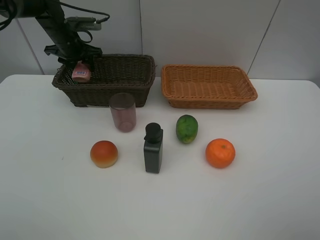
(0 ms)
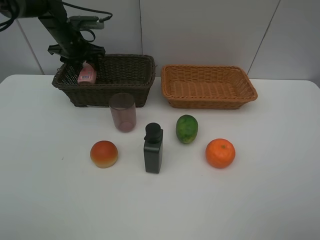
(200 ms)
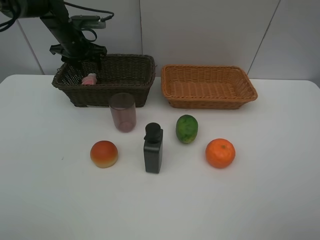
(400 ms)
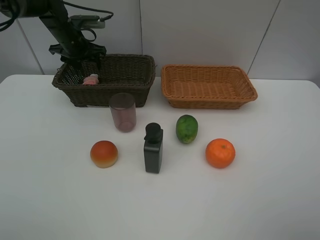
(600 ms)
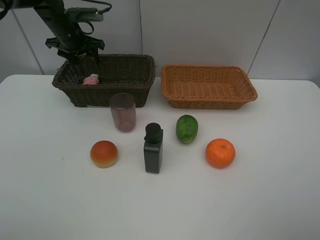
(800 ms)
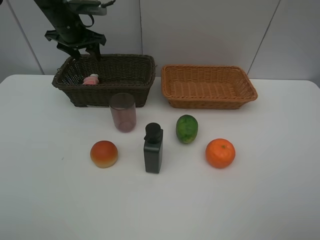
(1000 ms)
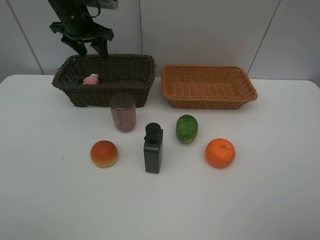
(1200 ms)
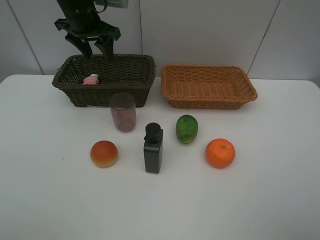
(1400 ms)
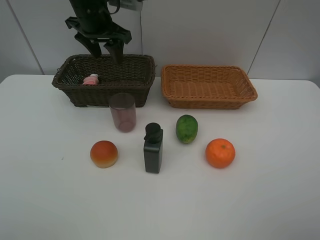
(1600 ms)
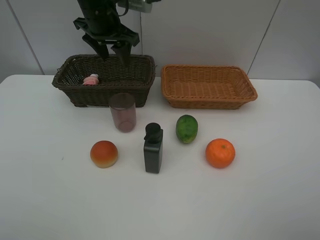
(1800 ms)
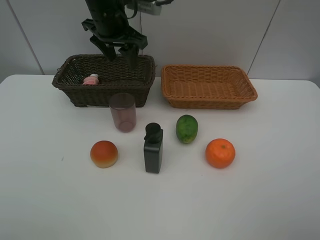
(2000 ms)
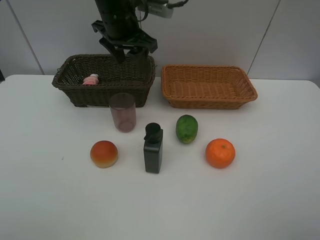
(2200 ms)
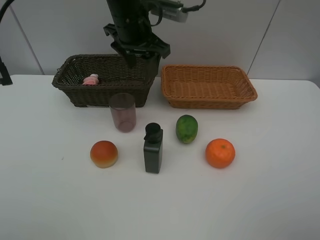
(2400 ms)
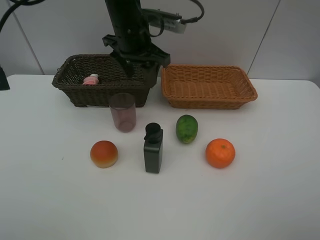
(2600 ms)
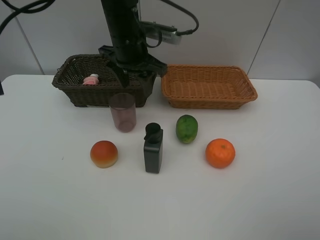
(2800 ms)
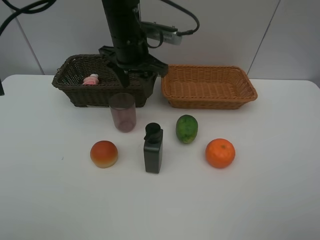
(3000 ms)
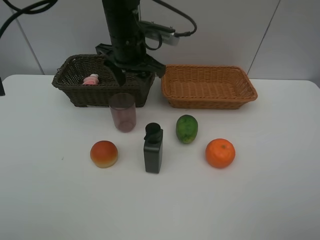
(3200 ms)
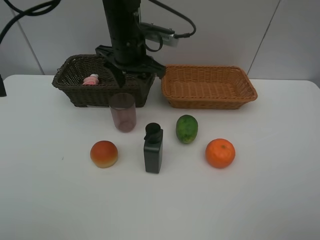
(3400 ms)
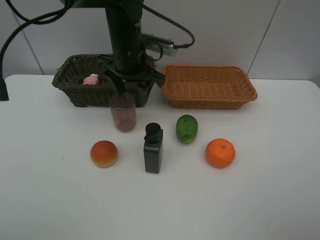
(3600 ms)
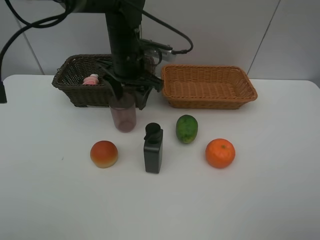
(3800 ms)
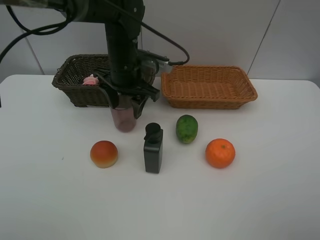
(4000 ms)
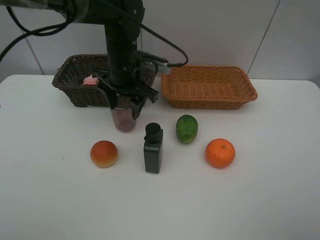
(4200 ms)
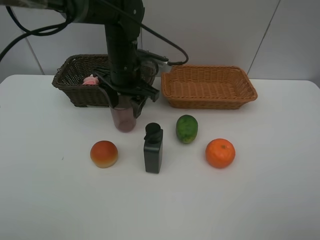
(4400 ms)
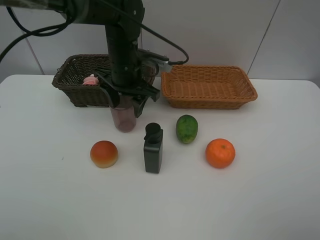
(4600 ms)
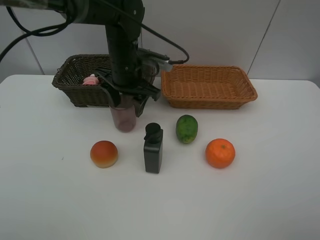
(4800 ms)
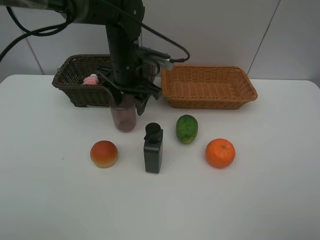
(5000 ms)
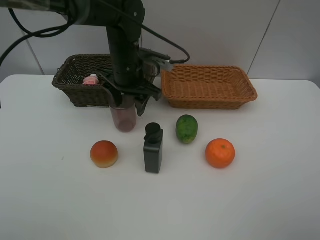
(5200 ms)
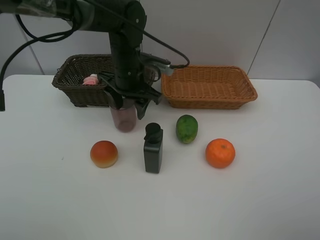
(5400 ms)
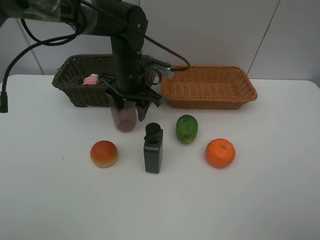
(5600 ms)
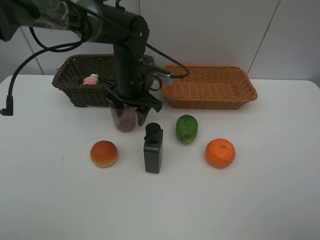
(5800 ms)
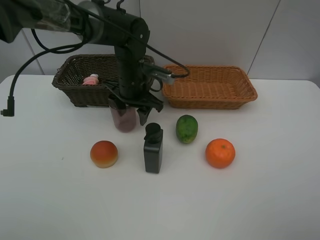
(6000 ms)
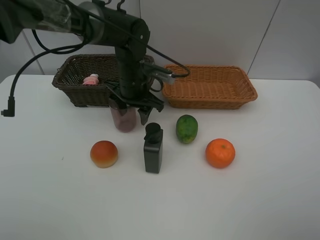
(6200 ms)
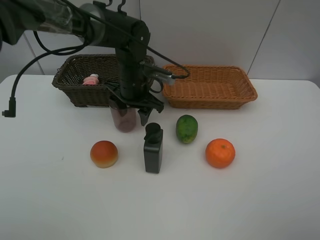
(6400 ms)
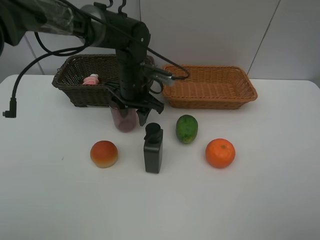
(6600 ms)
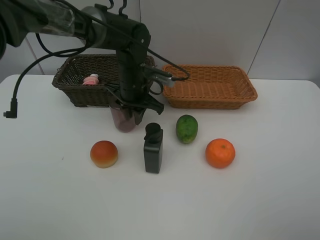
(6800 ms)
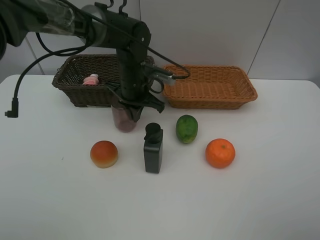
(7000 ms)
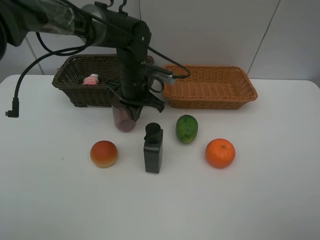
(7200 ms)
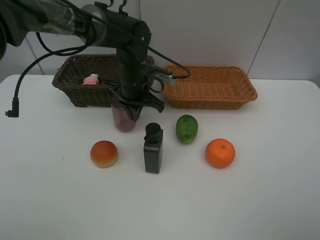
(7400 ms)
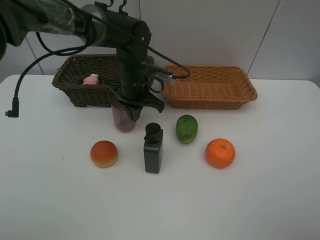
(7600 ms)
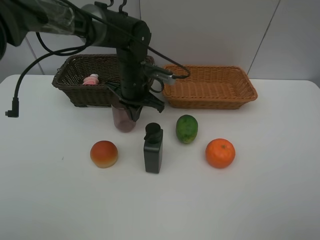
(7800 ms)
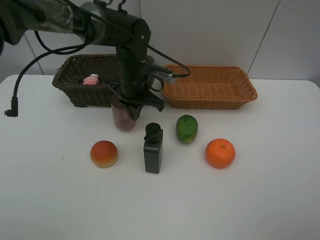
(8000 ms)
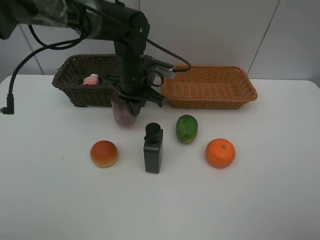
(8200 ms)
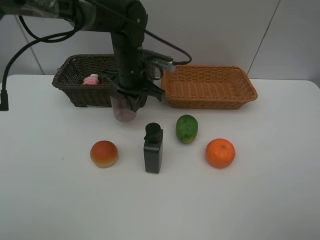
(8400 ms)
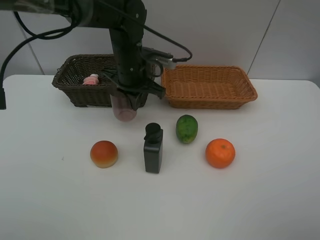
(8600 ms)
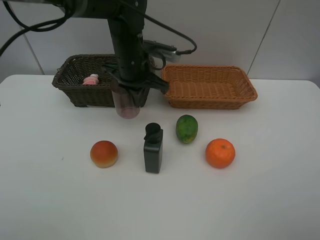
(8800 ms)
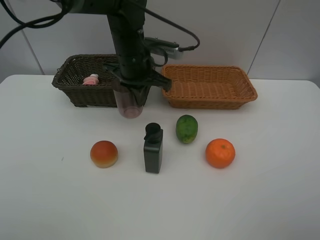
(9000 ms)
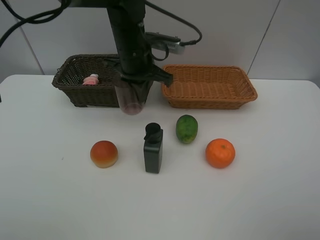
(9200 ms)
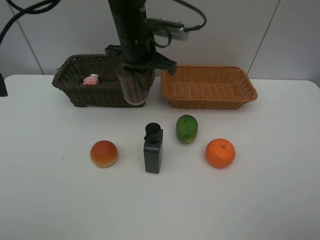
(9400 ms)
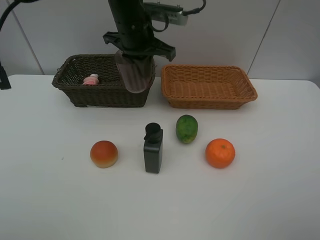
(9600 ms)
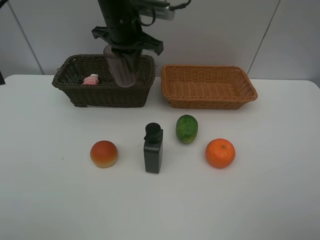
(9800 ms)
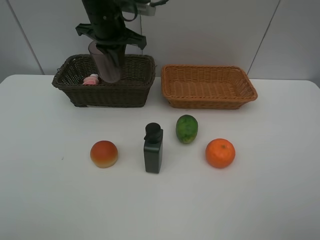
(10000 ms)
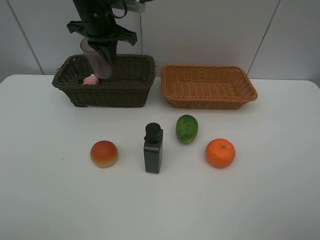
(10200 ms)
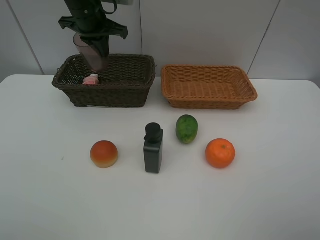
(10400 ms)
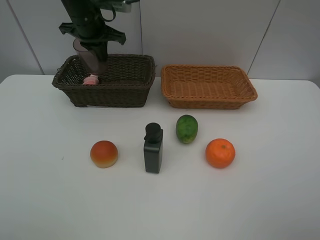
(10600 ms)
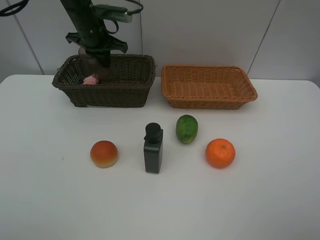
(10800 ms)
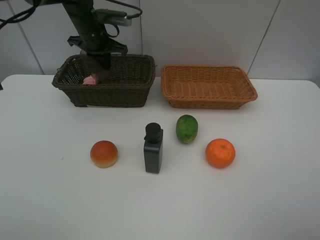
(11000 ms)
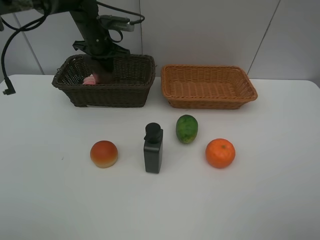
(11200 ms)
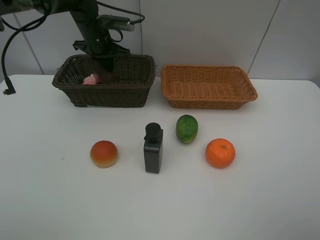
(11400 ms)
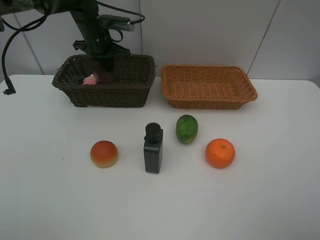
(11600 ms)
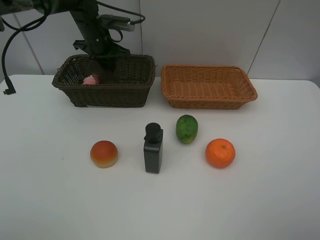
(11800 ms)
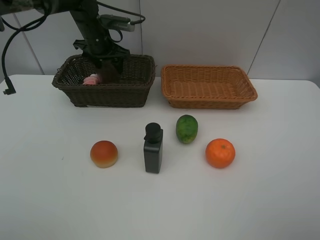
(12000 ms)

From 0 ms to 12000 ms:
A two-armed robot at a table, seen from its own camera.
Task of the whole recording: place multiple objects separately in different baskets.
From 0 ms to 1600 ms: The left gripper is displaced to the right, upward and backward by some 15 cm.
From 1600 ms to 3000 ms: The left gripper is displaced to the right and backward by approximately 10 cm.
From 3000 ms to 4400 ms: The left gripper ends up about 5 cm from where it was.
From 4400 ms to 6000 ms: The grippers make only small movements.
From 6000 ms to 7600 ms: The left gripper closes its fingers.
From 7600 ms to 9000 ms: The left gripper is displaced upward by approximately 5 cm.
From 9000 ms to 10400 ms: The left gripper heads to the left, forward and upward, covering about 15 cm.
From 10400 ms to 12000 ms: The left gripper travels downward and forward by roughly 10 cm, and opens up.

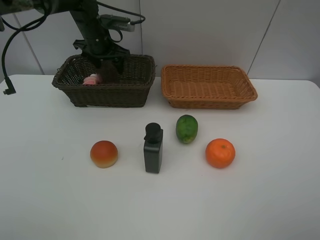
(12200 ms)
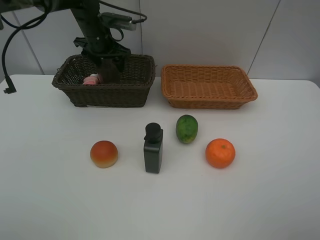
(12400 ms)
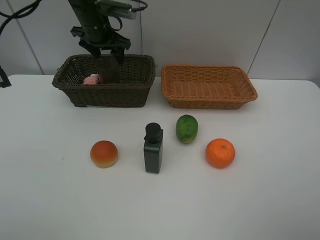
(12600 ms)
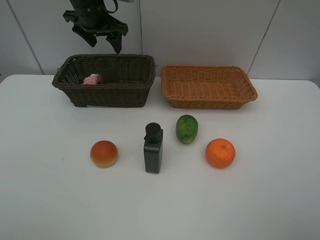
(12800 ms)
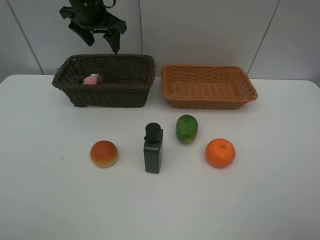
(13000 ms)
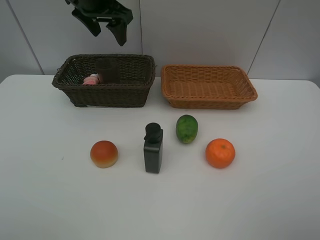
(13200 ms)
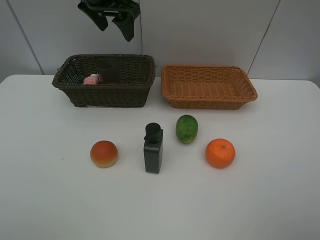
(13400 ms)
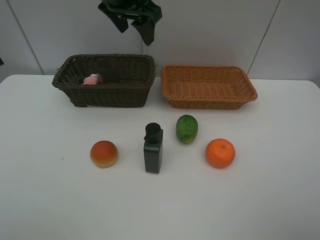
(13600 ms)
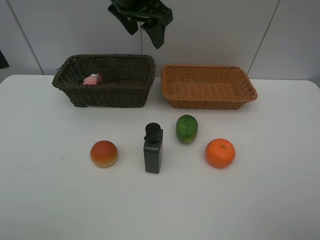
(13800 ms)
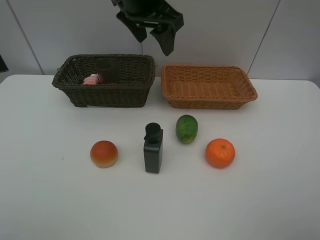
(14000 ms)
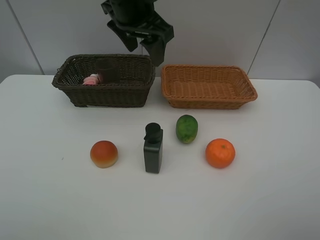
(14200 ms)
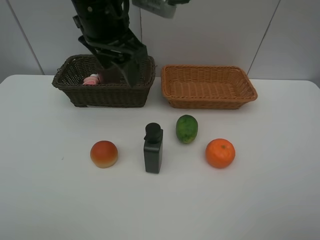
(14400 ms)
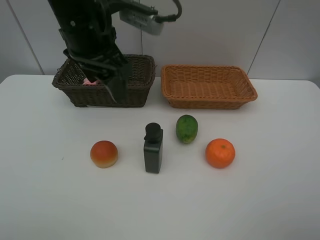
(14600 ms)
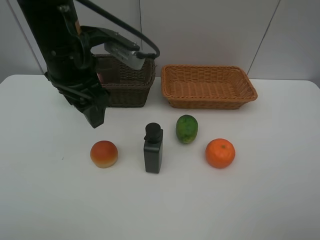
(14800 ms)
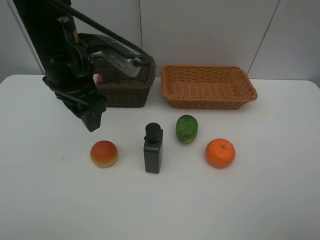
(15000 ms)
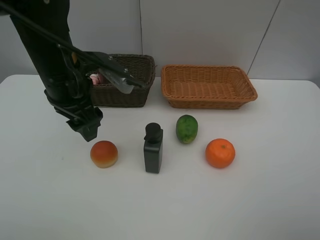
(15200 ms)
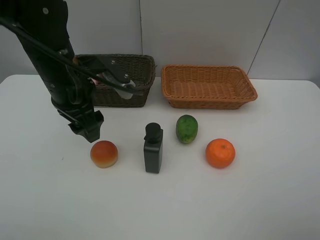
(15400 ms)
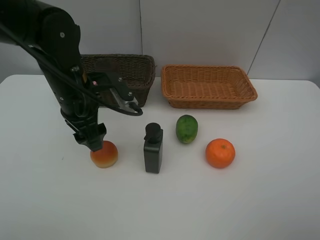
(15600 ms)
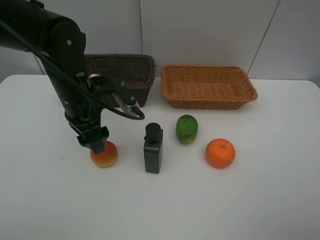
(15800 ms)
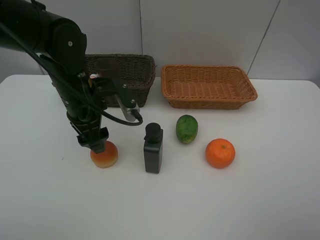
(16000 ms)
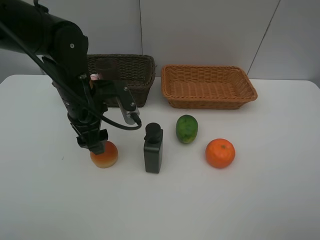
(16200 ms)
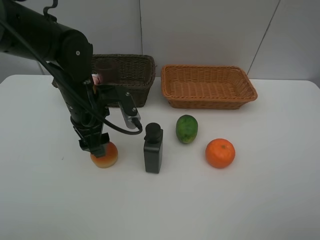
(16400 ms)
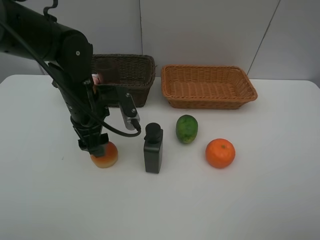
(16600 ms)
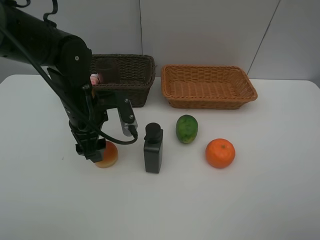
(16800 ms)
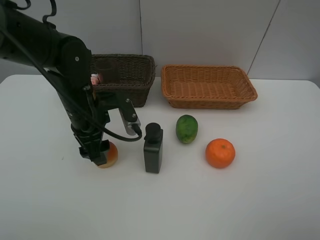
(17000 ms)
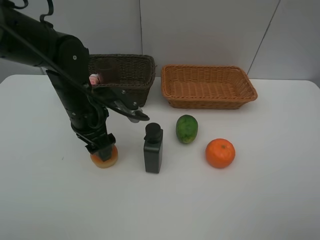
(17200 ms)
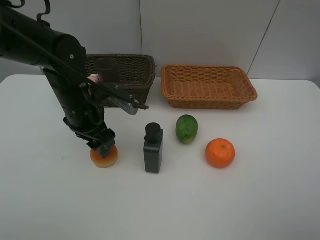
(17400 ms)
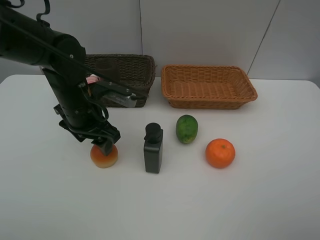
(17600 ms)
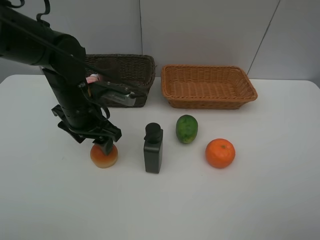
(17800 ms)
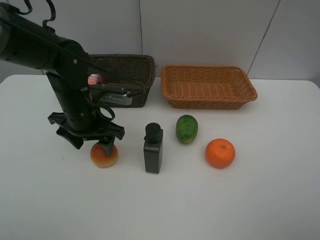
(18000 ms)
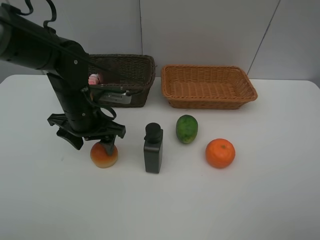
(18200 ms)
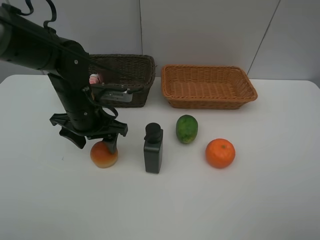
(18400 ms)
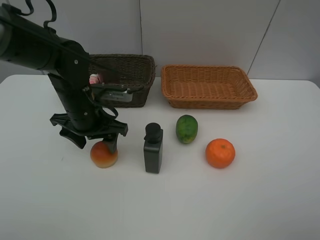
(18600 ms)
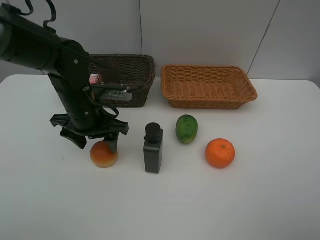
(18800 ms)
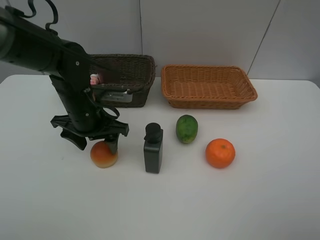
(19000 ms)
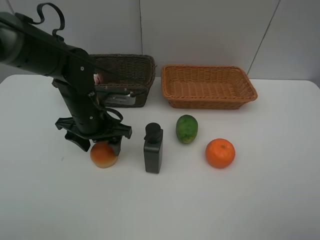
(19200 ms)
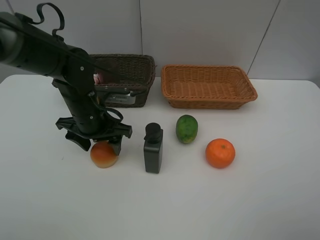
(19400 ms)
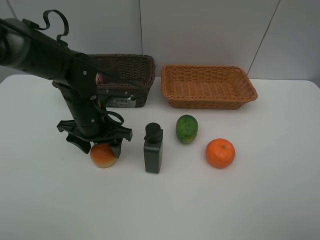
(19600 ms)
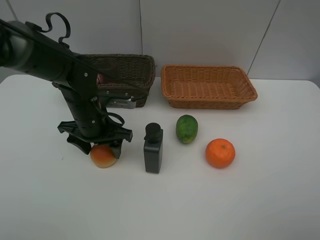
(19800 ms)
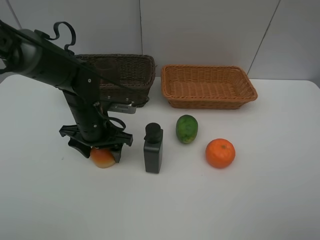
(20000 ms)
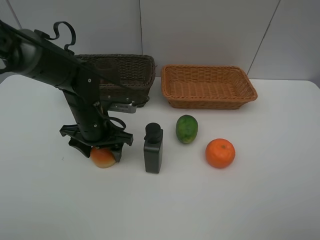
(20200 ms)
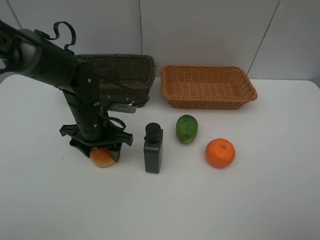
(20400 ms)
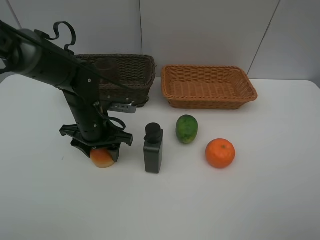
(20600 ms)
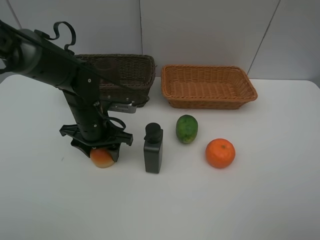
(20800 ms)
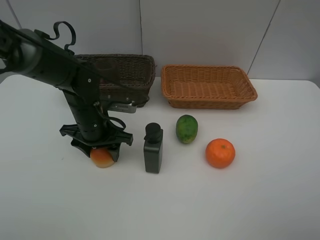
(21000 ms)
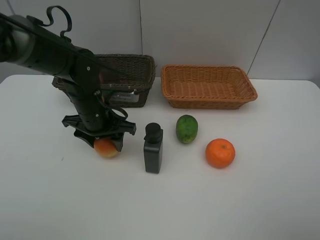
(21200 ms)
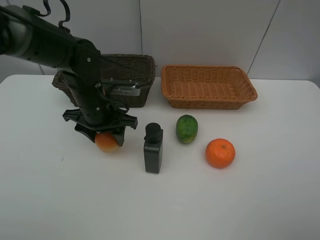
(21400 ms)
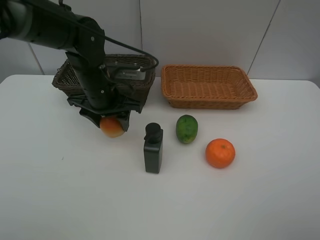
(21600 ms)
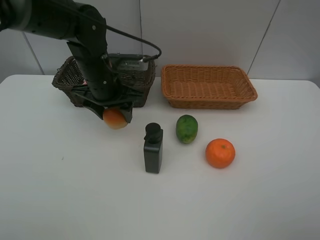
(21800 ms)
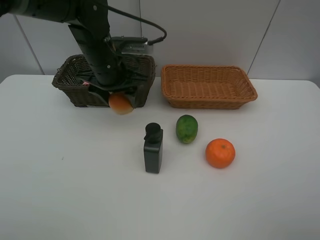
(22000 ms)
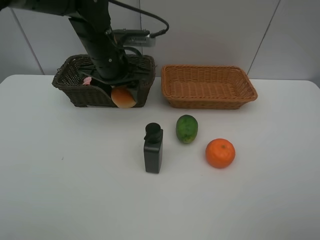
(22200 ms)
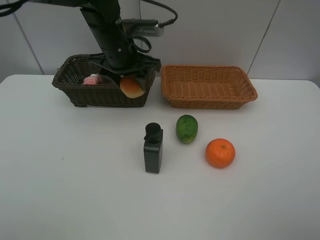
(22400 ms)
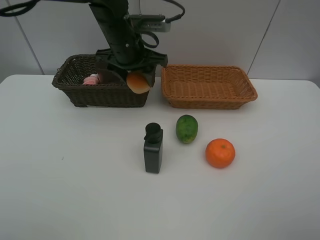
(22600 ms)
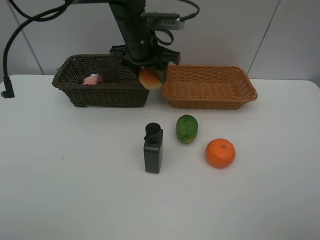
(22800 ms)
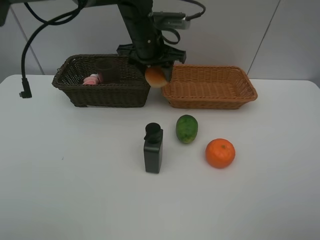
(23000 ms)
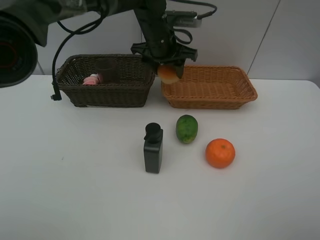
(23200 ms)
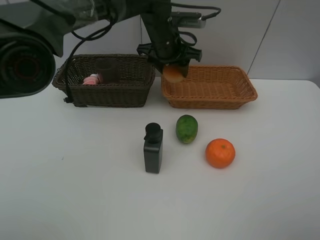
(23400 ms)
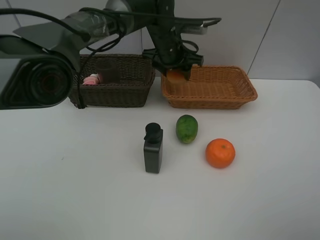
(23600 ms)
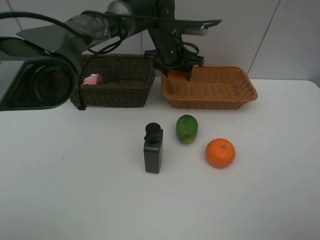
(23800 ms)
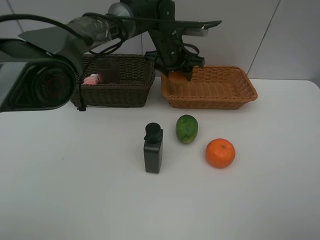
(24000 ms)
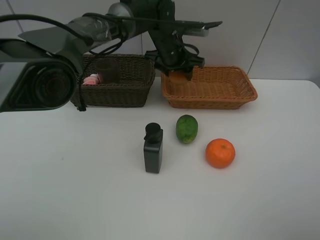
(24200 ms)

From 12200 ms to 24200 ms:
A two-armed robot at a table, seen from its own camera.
Task of the whole recording: place multiple objects separately in different baskets.
From 12200 ms to 13800 ms: The left gripper is displaced upward, backward and to the right by about 20 cm.
From 13800 ms to 15200 ms: The left gripper travels backward, downward and to the left by about 20 cm.
From 15200 ms to 16600 ms: The left gripper heads downward, covering roughly 5 cm.
From 18200 ms to 21200 ms: The grippers make only small movements.
From 21200 ms to 22600 ms: The left gripper travels upward, forward and to the right by approximately 15 cm.
From 22600 ms to 24200 ms: The left gripper heads to the right and forward, covering some 10 cm.
